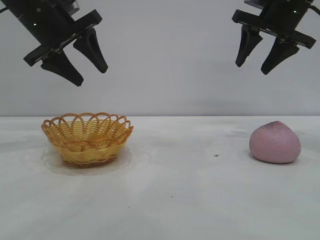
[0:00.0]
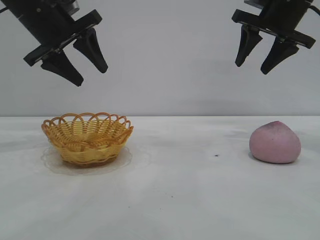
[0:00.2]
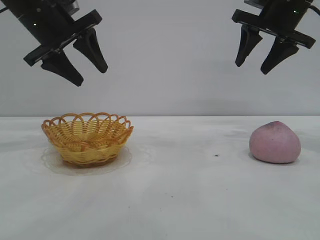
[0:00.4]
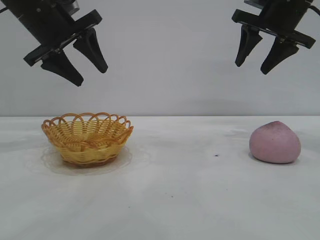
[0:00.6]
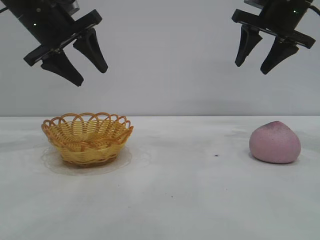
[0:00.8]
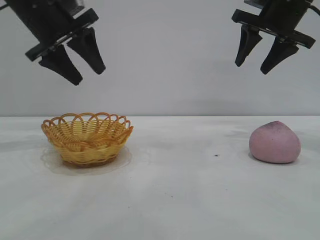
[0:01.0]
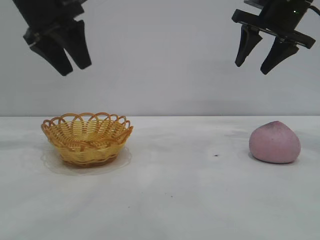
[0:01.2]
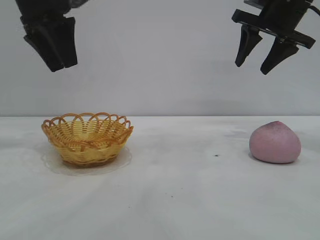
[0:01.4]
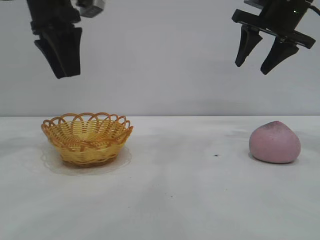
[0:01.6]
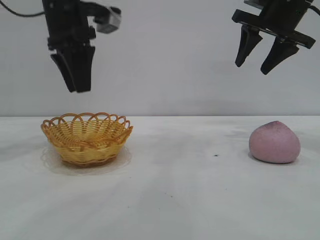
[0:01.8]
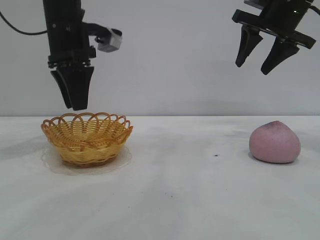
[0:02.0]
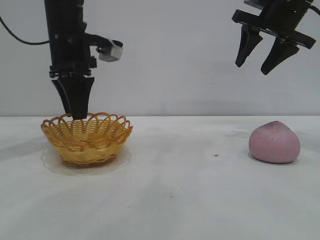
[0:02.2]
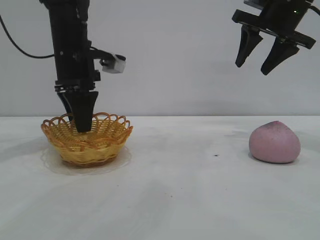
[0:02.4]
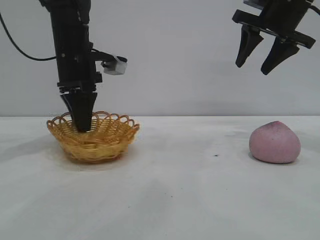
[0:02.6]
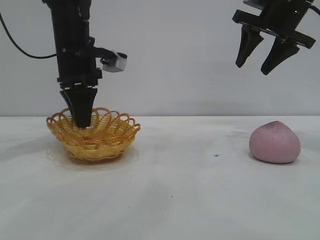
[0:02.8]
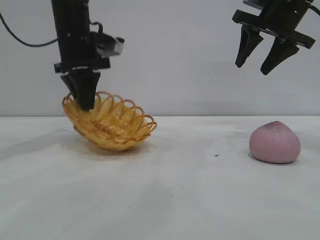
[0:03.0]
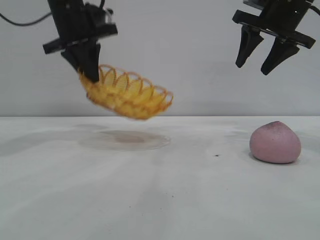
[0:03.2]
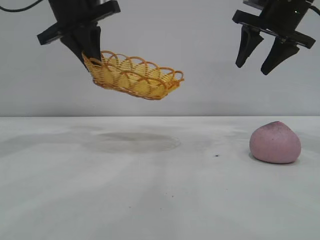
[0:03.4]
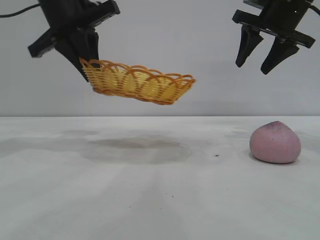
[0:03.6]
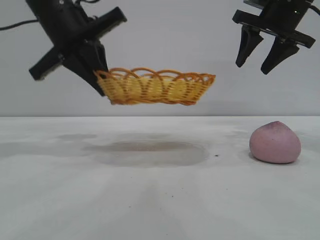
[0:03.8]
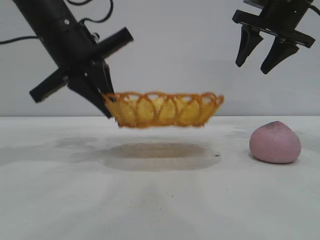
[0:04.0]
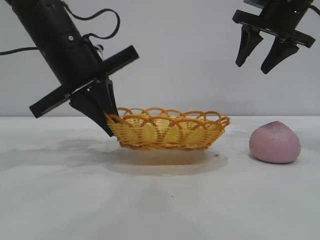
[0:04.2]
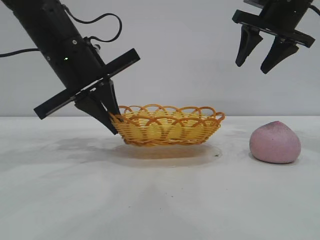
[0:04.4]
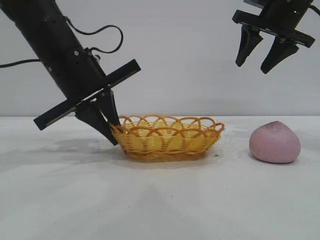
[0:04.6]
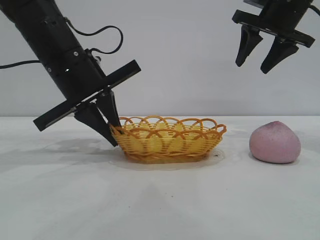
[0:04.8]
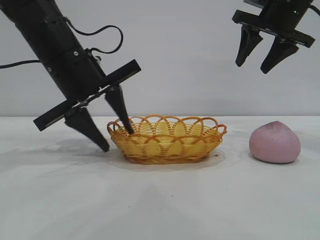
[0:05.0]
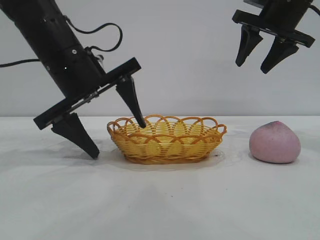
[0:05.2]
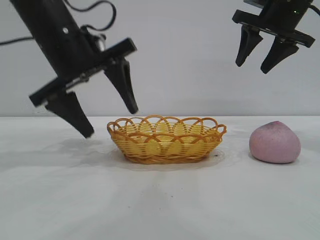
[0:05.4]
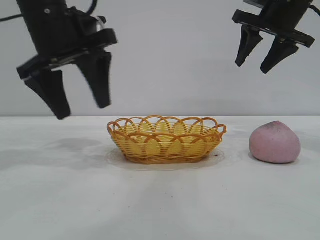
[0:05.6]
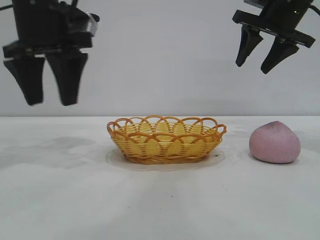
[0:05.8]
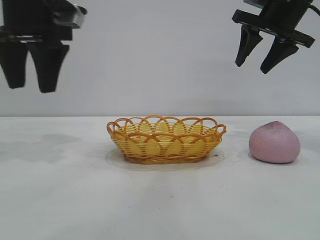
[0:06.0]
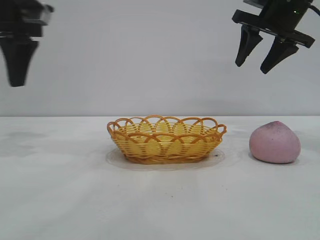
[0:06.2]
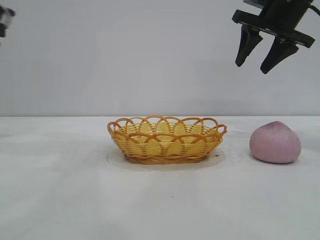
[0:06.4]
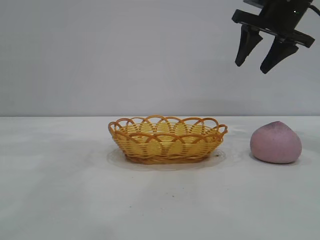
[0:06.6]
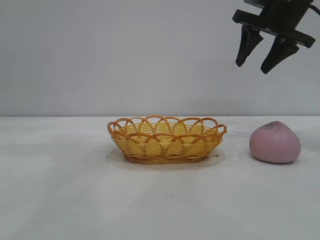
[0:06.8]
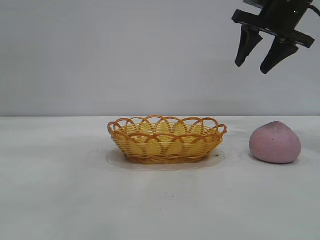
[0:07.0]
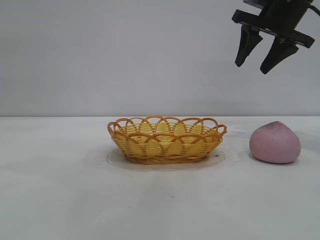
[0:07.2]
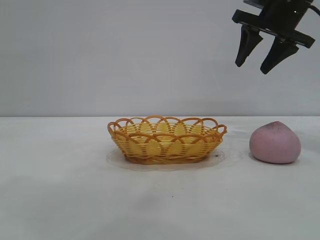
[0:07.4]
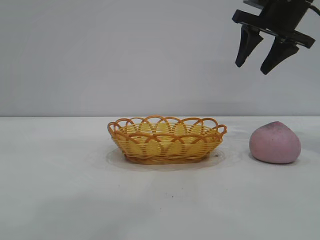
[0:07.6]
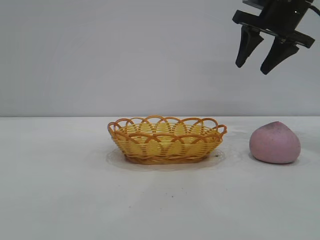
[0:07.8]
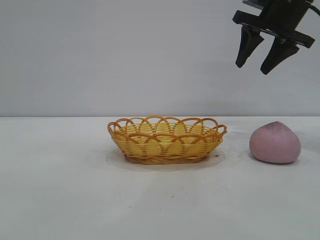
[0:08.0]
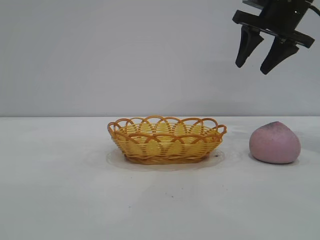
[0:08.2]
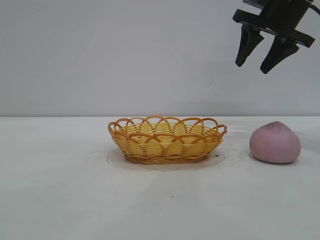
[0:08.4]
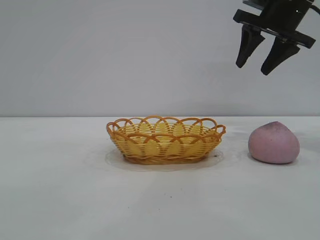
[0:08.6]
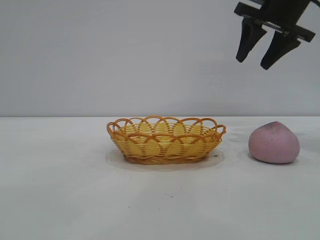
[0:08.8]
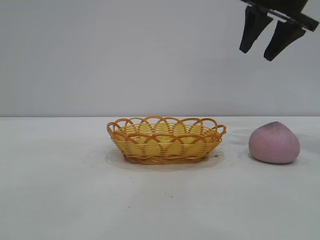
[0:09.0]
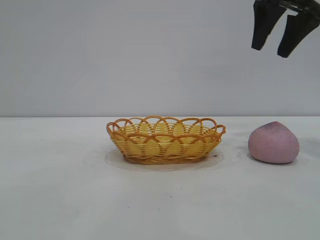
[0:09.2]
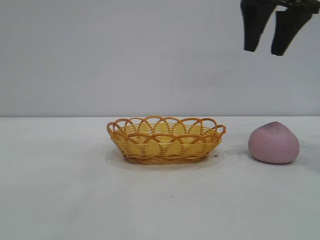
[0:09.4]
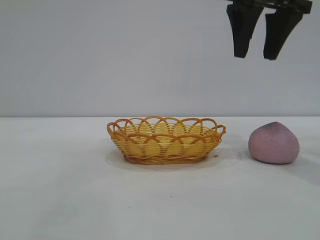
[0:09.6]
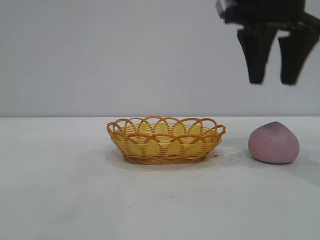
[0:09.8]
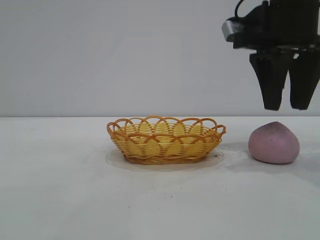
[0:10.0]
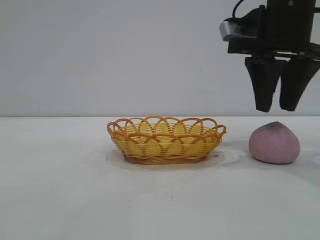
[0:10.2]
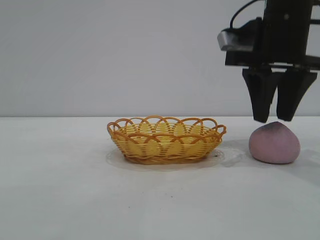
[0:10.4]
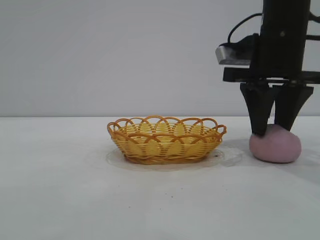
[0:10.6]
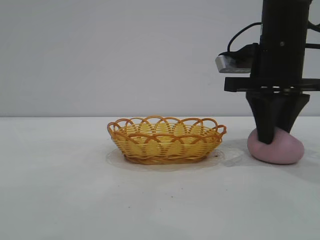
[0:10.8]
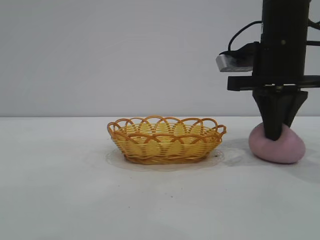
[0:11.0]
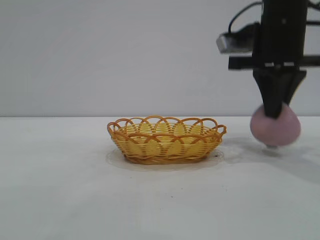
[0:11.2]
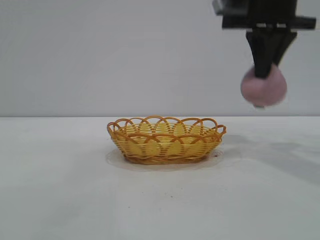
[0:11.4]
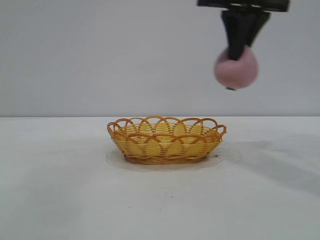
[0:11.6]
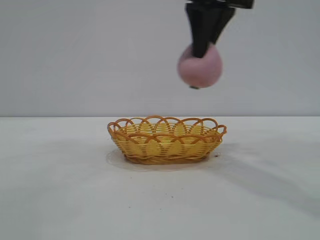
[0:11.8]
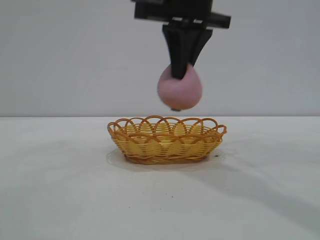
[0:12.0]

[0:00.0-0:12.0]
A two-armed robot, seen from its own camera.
Task of the whole recording: pick up the peach and put it into the basket.
Step, 0:00.0 to 0:05.6: Move the basket to the center of view.
Step, 0:05.8 to 0:11.2: Pick up the peach.

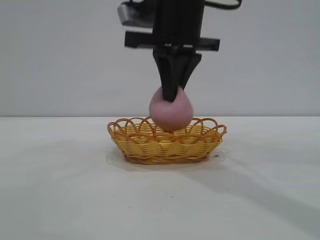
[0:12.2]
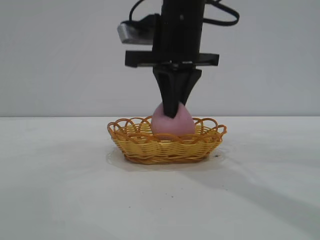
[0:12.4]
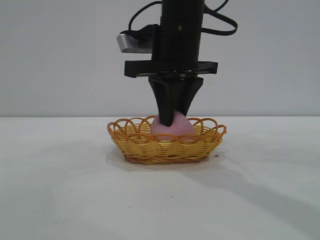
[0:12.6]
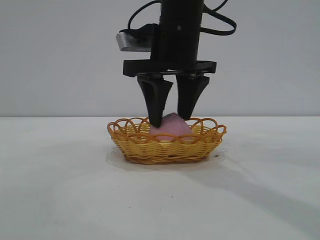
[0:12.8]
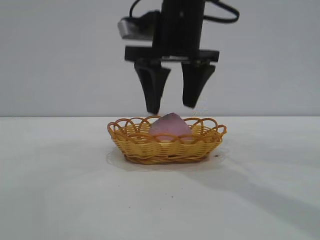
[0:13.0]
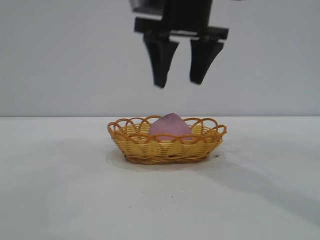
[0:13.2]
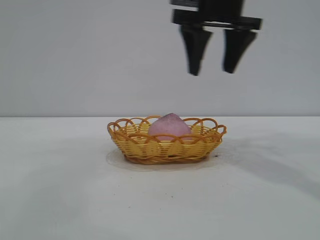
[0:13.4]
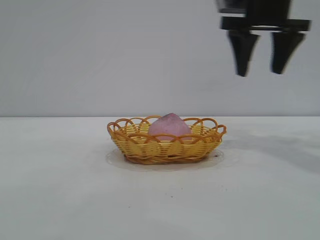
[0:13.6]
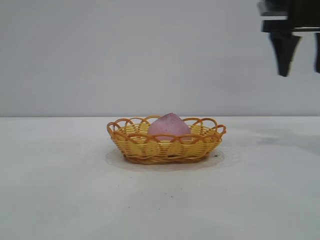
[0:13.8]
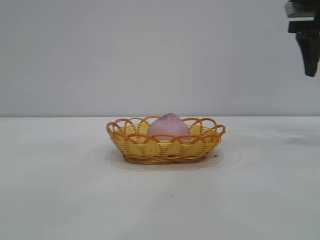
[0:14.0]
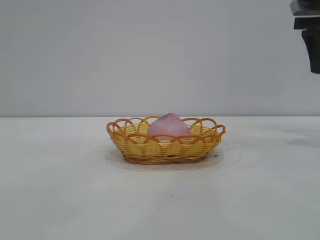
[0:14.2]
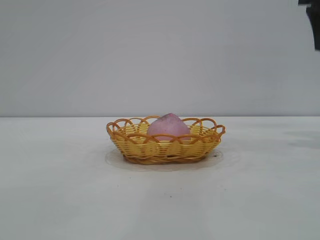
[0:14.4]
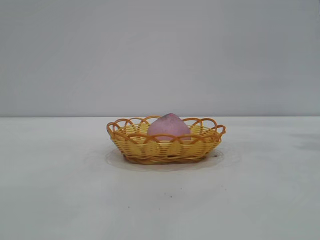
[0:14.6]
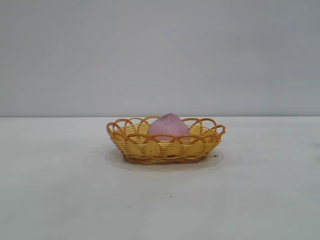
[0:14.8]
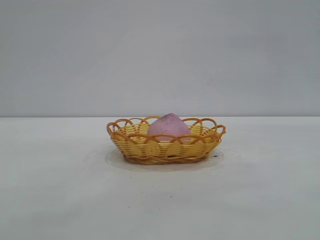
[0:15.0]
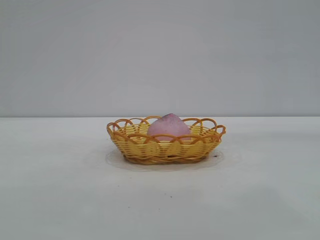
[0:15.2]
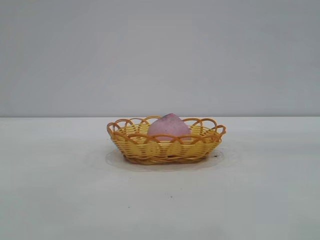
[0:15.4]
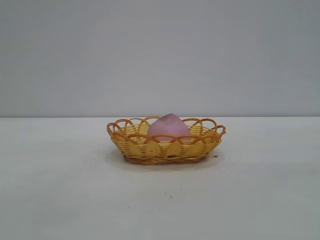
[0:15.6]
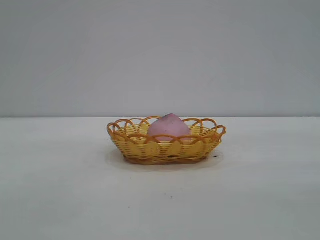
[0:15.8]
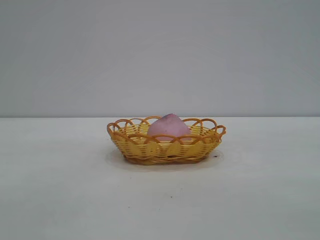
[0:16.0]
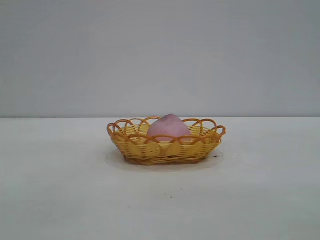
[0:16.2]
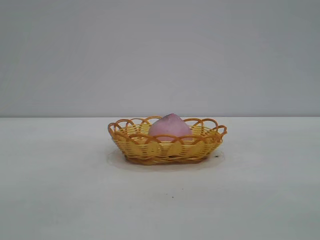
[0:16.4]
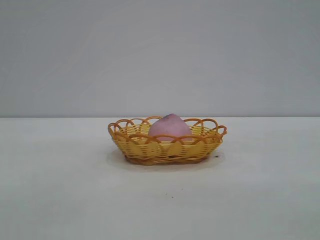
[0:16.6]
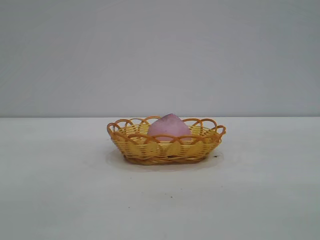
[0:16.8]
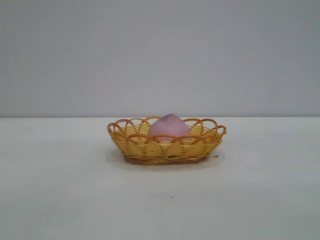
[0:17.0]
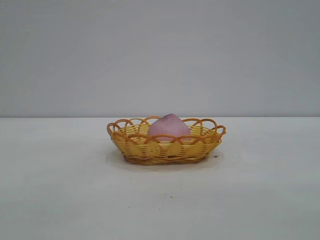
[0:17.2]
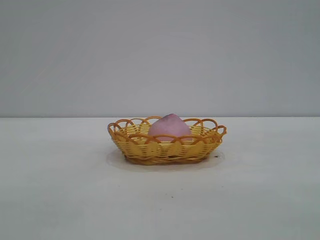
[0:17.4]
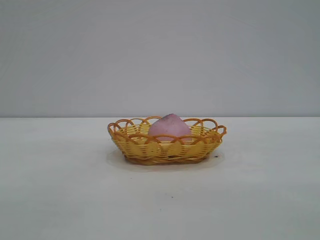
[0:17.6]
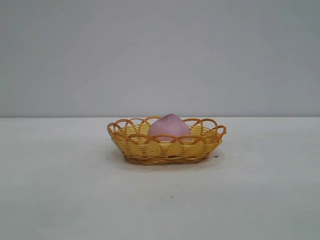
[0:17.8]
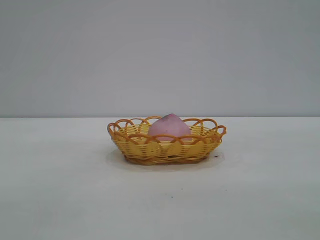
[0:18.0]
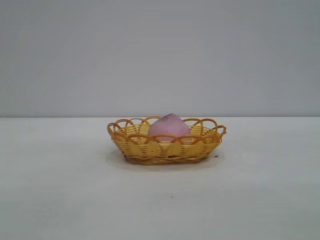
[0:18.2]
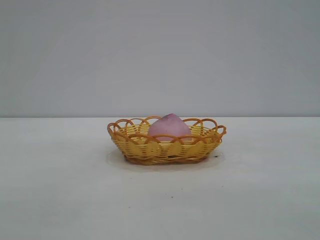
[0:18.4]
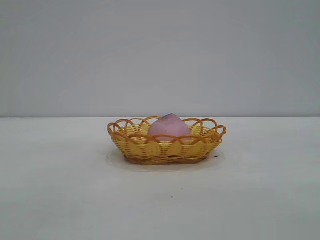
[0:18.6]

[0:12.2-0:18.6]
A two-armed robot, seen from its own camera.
Task of the whole recording: pick up the peach and put it into the basket.
Step, 0:12.2 to 0:13.2: place the peach into the basket.

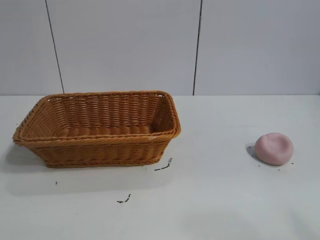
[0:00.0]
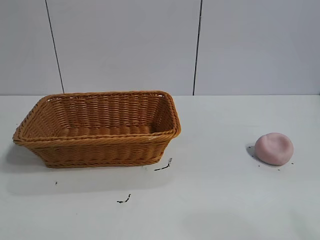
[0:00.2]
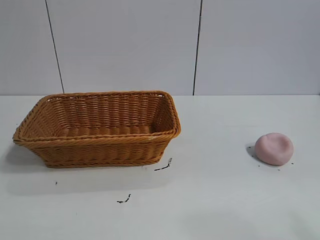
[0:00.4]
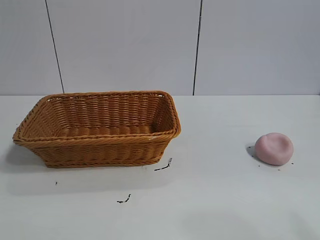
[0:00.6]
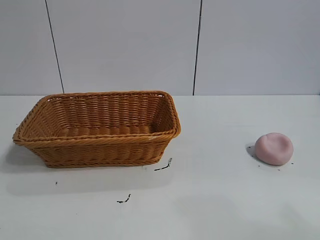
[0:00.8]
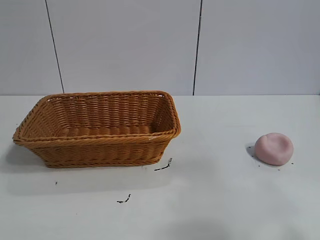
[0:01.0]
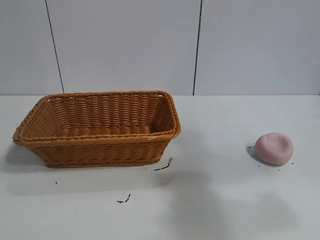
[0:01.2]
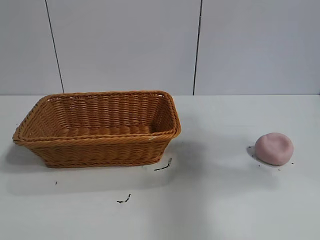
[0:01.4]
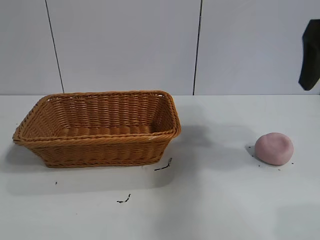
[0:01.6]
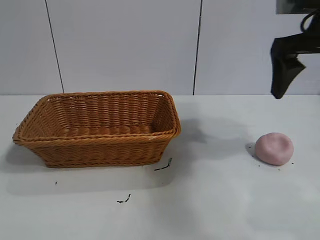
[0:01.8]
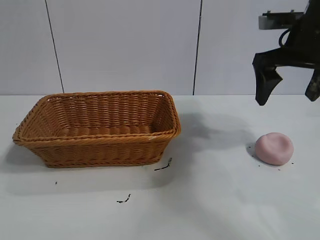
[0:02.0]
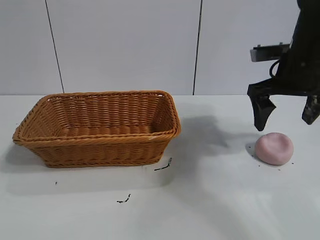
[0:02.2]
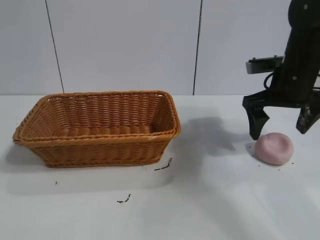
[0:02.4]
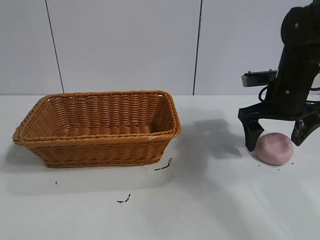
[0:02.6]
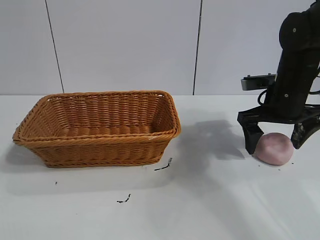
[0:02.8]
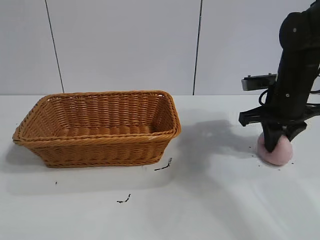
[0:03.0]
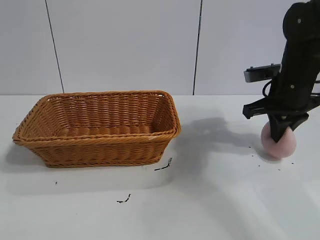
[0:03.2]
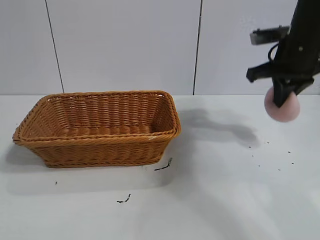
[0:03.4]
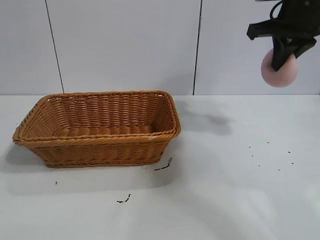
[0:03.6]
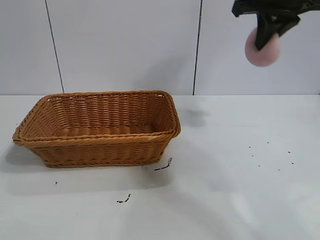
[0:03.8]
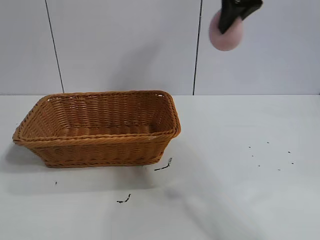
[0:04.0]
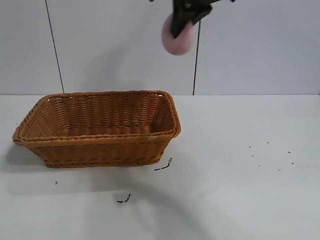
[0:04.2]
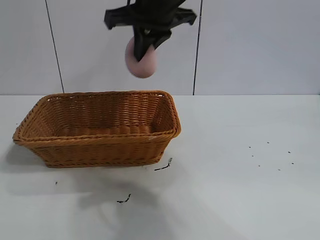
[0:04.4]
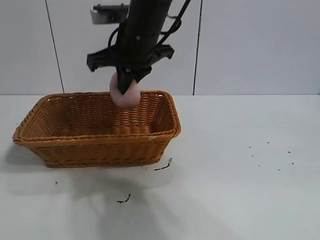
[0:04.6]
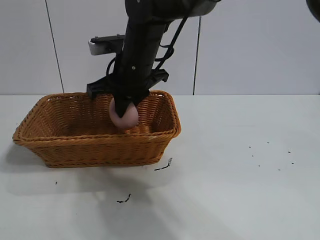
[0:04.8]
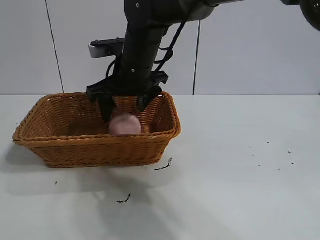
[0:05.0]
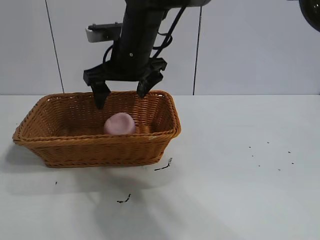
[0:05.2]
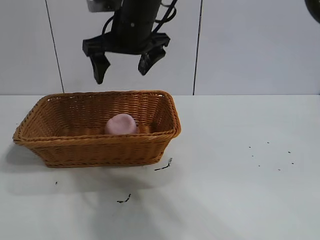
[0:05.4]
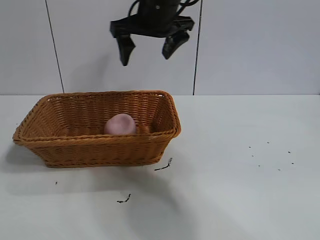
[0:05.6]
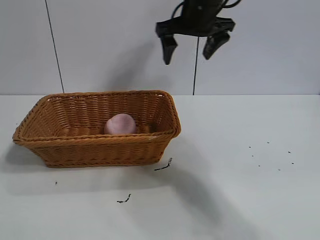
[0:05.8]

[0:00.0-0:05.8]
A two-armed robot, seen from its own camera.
Task of the whole recording: pick up the peach and put it into the basket.
Step, 0:00.8 to 0:03.0: Grasp the peach with right gripper.
Step, 0:03.2 to 0:05.0: Place the peach in the basket with right gripper.
